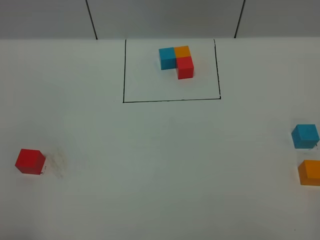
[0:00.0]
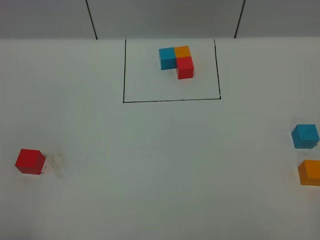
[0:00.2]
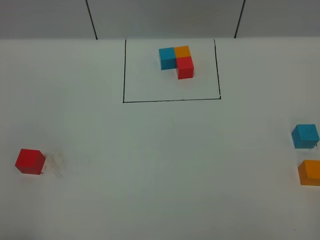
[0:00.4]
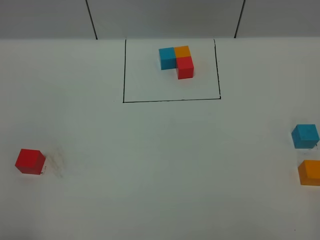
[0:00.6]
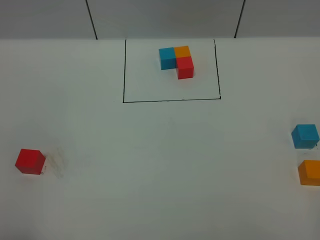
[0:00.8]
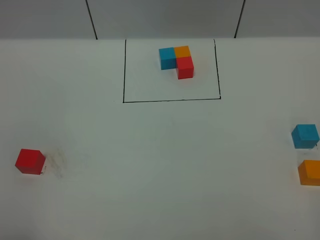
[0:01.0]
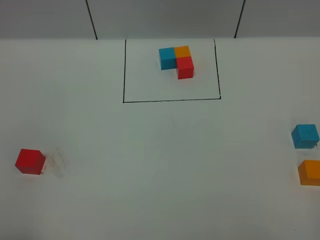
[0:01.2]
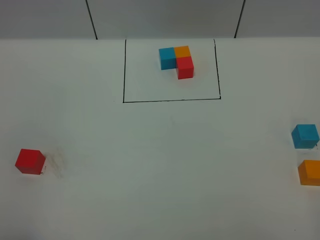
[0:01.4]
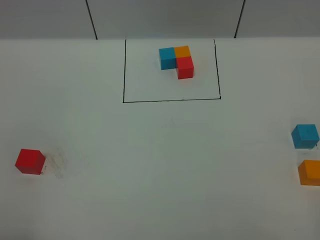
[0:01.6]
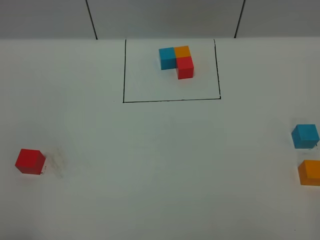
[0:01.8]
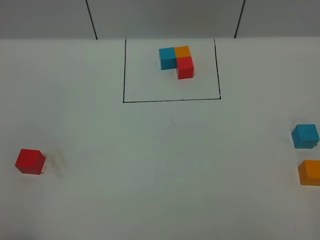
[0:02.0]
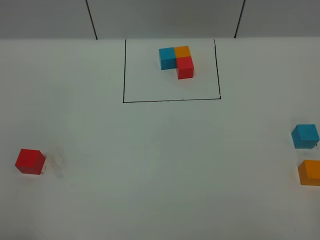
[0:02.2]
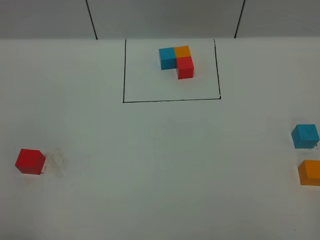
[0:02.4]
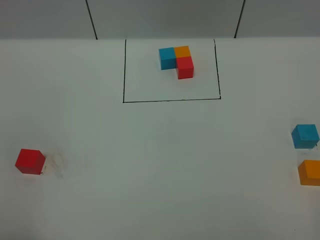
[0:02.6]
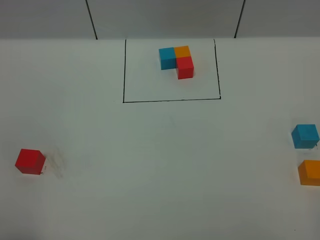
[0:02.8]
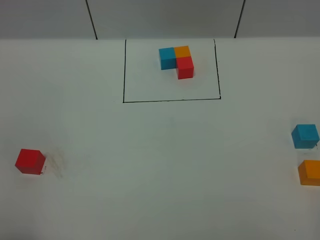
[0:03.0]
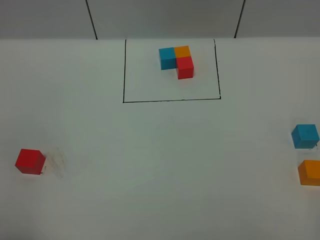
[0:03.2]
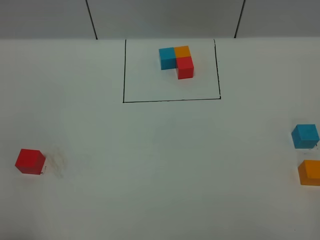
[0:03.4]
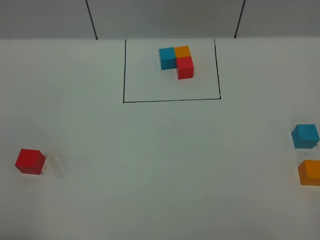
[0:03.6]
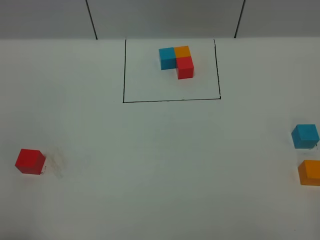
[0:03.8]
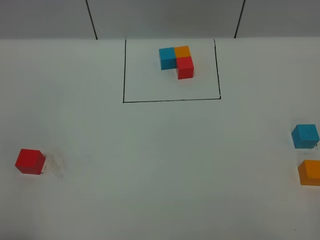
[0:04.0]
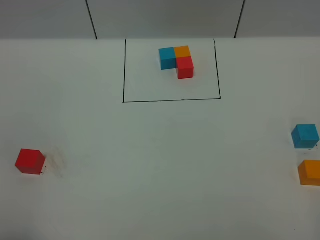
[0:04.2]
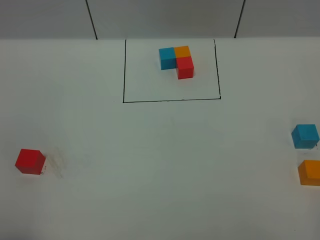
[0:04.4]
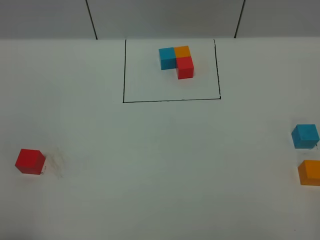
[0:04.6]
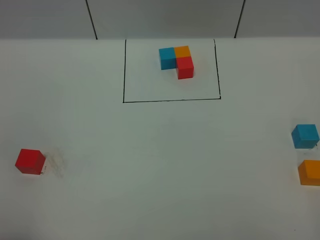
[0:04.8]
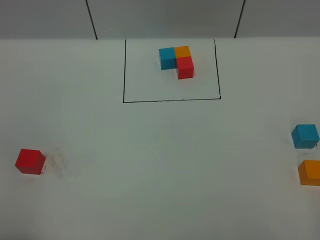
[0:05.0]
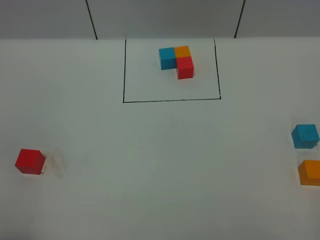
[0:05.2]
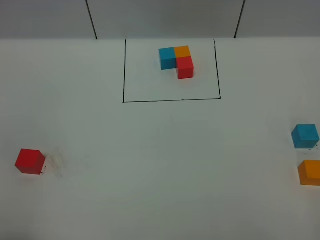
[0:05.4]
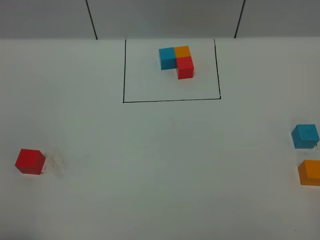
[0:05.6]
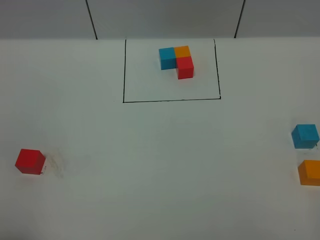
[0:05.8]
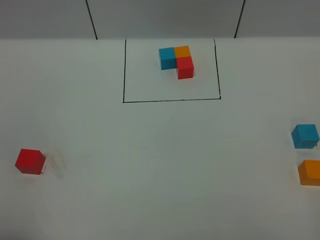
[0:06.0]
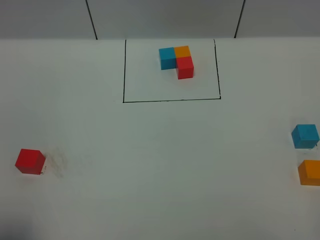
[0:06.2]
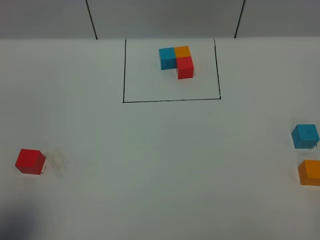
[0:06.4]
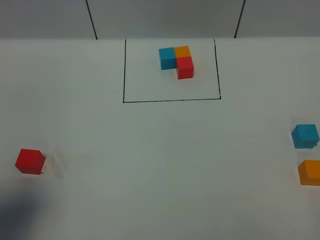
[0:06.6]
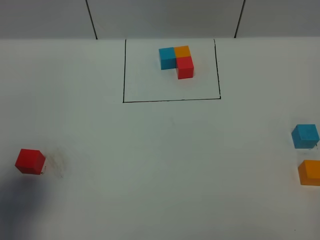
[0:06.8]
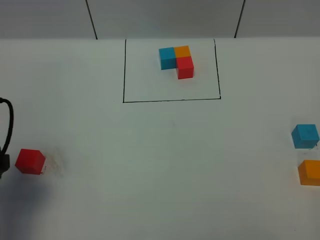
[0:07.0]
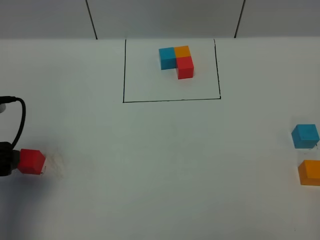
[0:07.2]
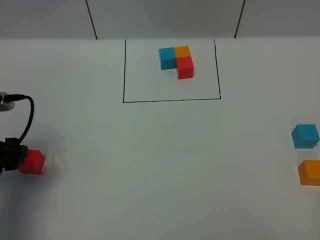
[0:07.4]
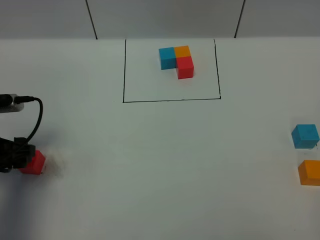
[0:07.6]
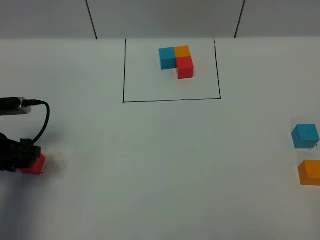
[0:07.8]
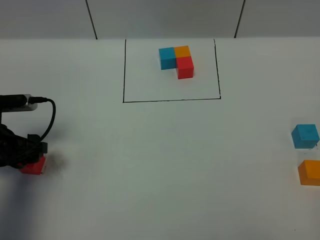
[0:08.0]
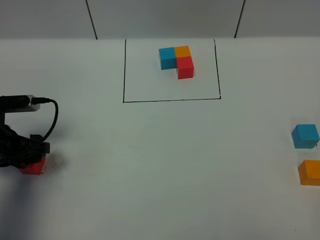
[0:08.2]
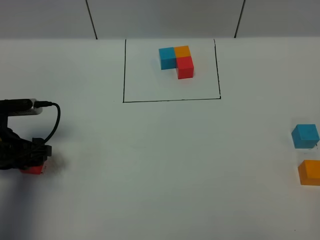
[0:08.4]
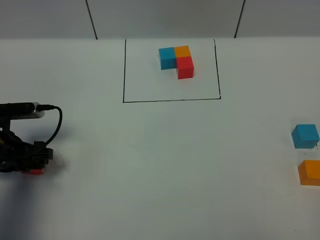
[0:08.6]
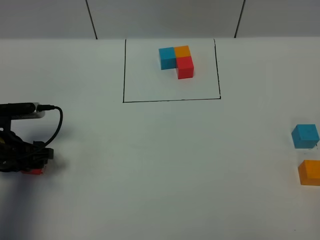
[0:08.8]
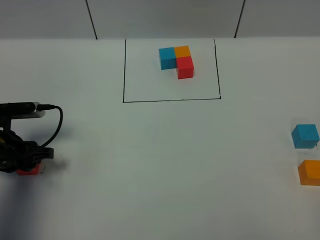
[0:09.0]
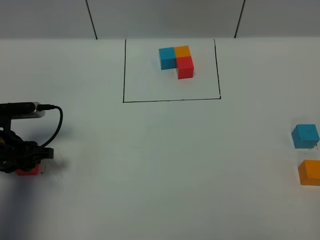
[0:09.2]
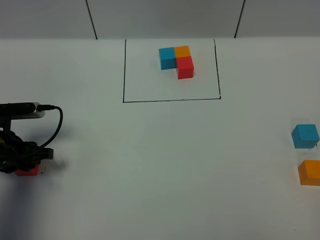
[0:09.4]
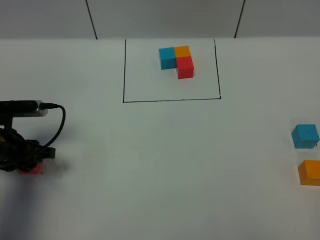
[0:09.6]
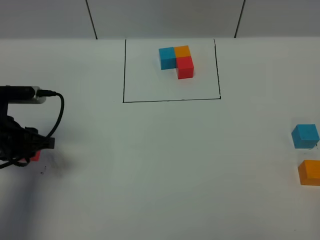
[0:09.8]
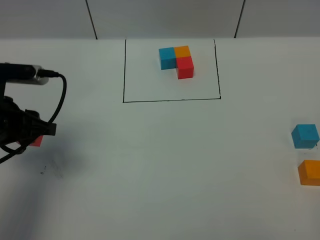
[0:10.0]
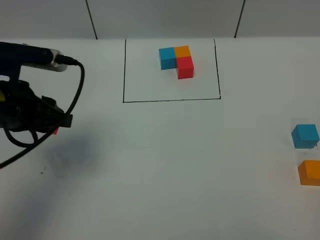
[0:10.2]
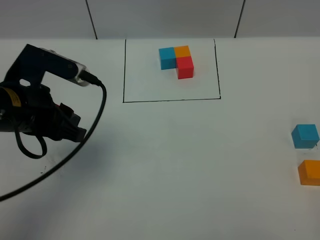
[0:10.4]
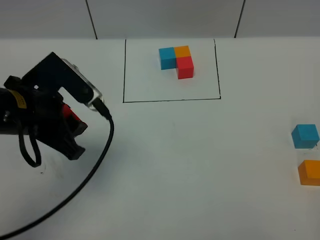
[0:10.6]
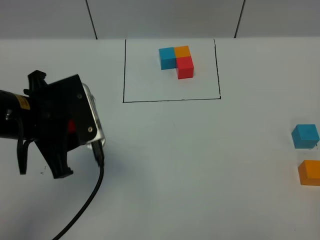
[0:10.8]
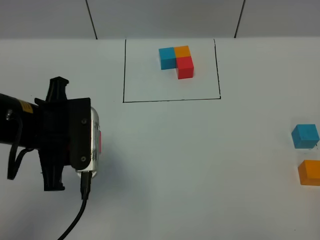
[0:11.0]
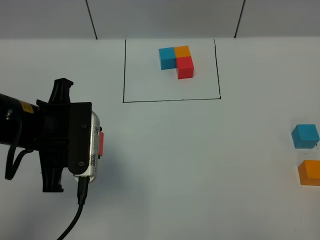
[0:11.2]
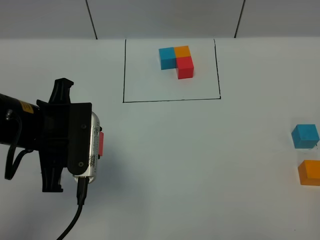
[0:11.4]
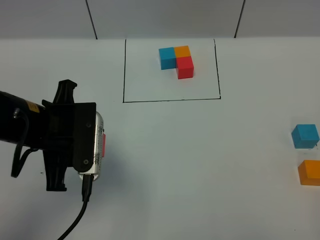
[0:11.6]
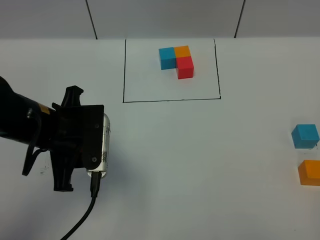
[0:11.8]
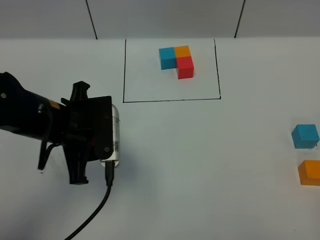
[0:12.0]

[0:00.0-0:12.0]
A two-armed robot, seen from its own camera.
Task of the whole recording: According to the building block template in front, assemble the scattered blocks together.
0:00.0 to 0:01.6: Both grippers stay about where they are.
0:03.0 to 0:04.4: The two grippers keep their place.
0:04.4 to 0:06.0: Both grippers stay about where they are.
0:06.0 to 0:07.6: The left gripper shifts roughly 25 cm forward and downward.
0:07.6 to 0:09.0: The left gripper moves about 5 cm, and closes.
0:09.0 to 0:10.4: The left gripper moves upward and to the right, some 15 cm.
0:10.4 to 0:12.0: The left gripper changes place by about 5 cm.

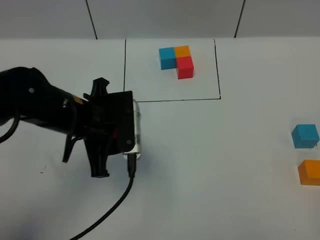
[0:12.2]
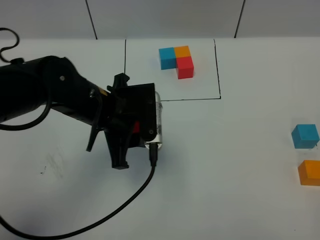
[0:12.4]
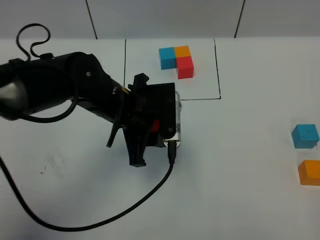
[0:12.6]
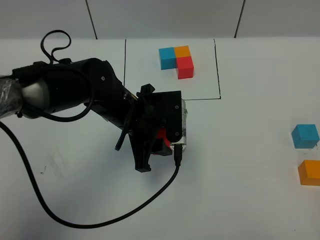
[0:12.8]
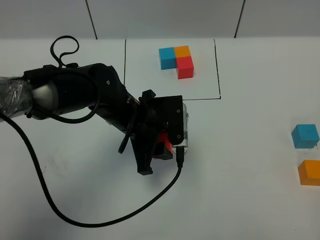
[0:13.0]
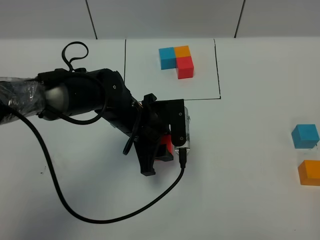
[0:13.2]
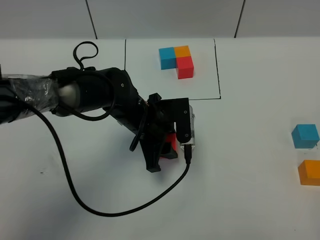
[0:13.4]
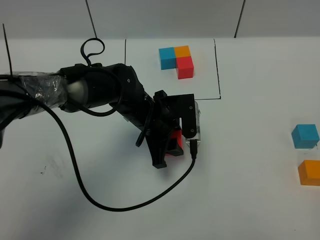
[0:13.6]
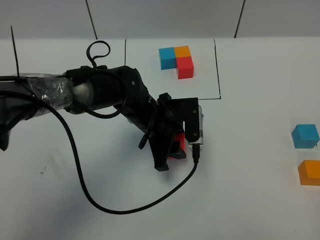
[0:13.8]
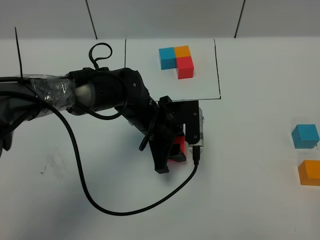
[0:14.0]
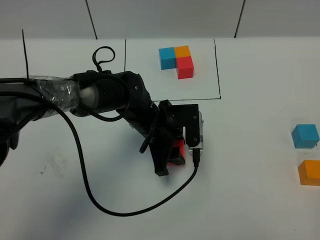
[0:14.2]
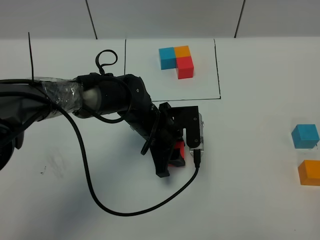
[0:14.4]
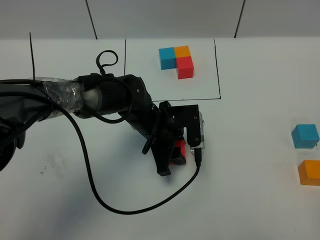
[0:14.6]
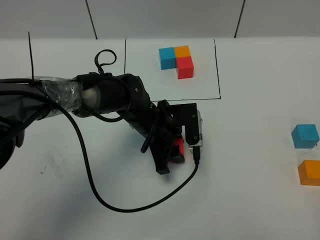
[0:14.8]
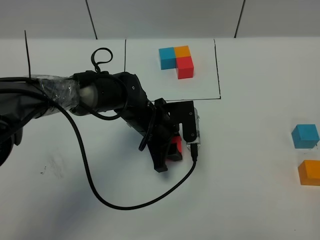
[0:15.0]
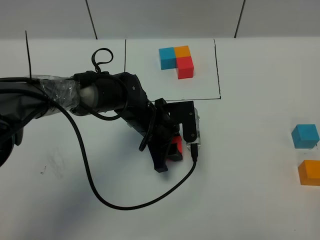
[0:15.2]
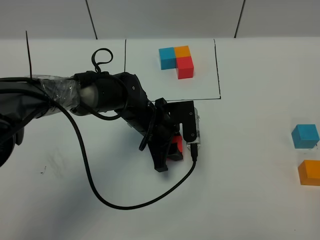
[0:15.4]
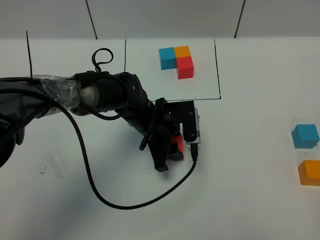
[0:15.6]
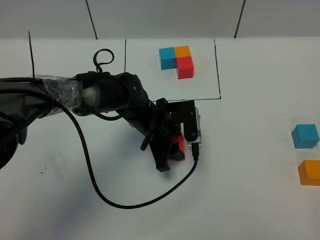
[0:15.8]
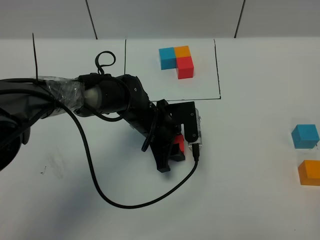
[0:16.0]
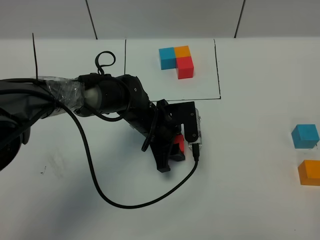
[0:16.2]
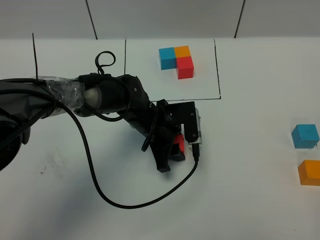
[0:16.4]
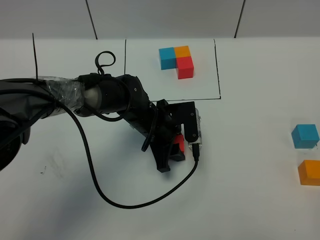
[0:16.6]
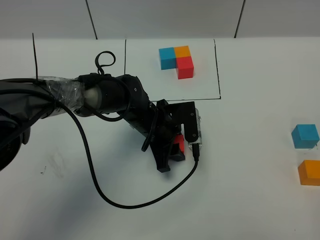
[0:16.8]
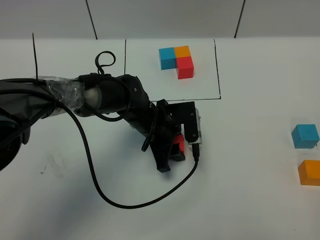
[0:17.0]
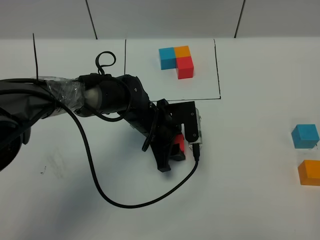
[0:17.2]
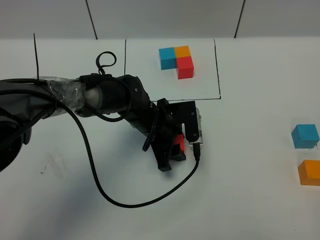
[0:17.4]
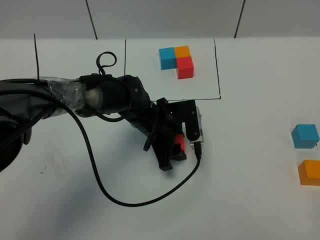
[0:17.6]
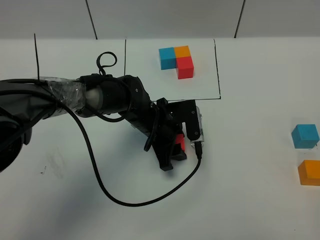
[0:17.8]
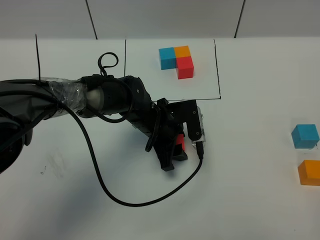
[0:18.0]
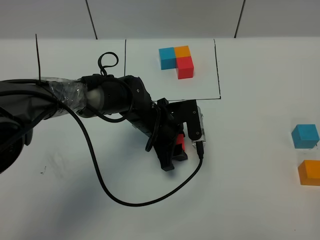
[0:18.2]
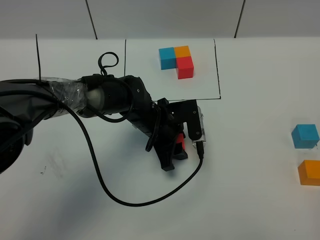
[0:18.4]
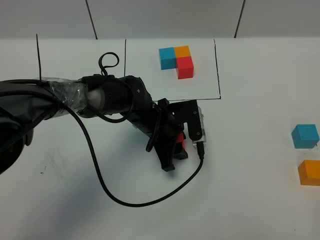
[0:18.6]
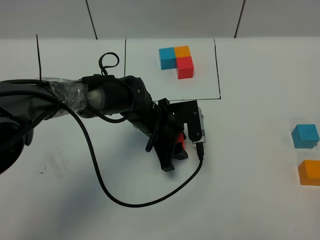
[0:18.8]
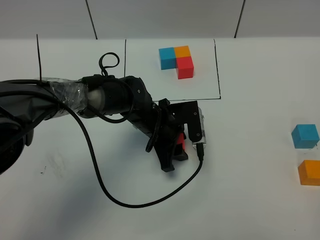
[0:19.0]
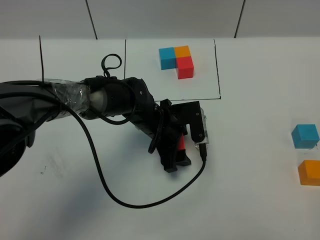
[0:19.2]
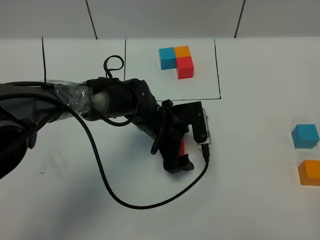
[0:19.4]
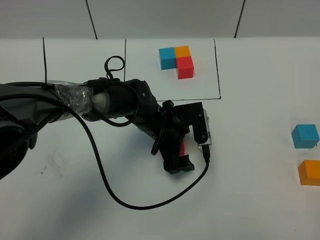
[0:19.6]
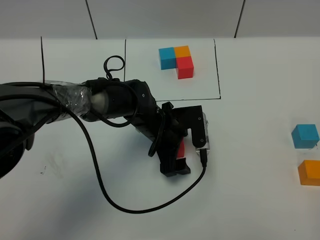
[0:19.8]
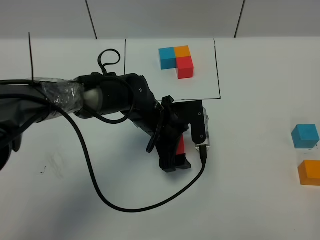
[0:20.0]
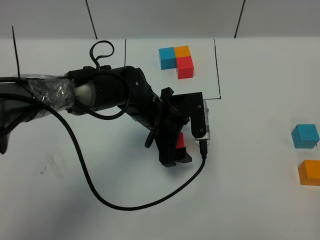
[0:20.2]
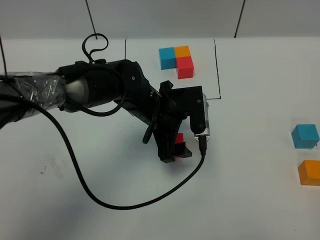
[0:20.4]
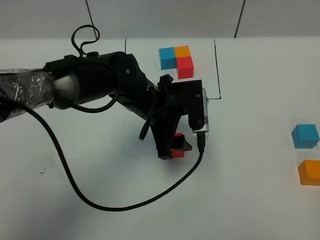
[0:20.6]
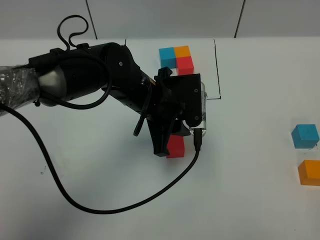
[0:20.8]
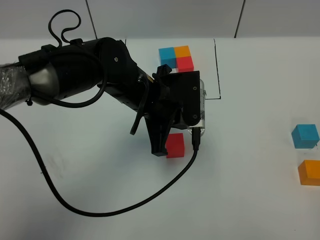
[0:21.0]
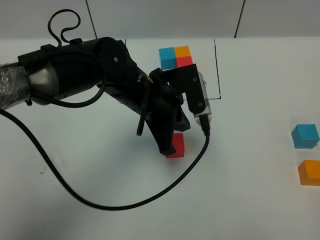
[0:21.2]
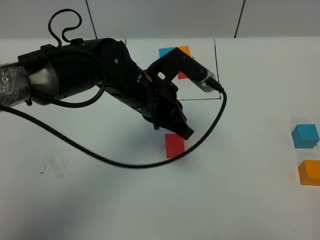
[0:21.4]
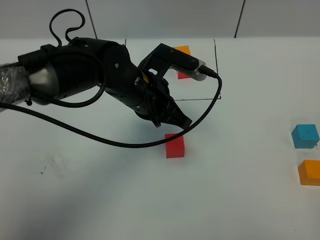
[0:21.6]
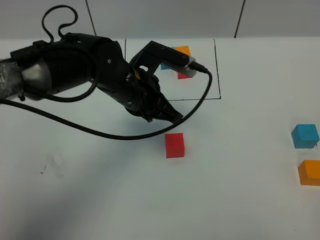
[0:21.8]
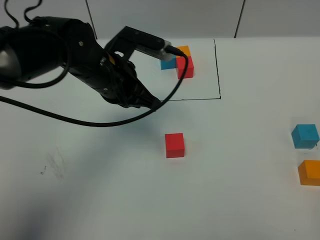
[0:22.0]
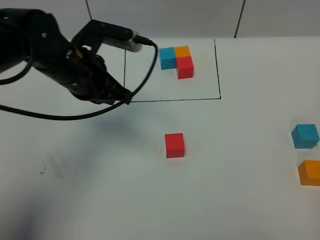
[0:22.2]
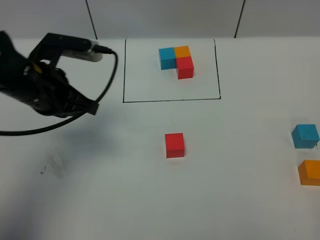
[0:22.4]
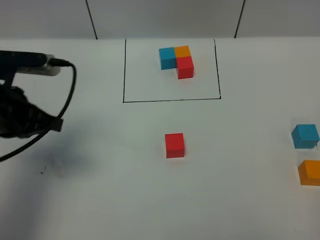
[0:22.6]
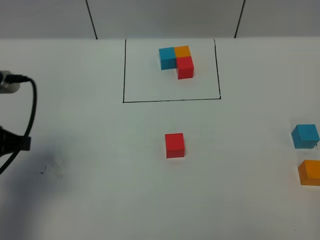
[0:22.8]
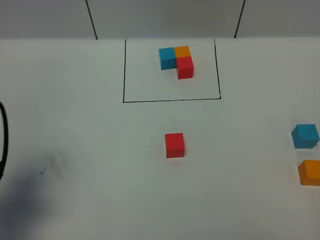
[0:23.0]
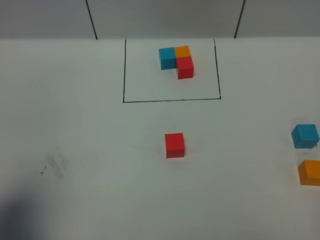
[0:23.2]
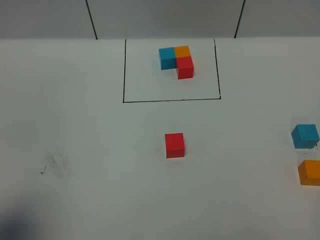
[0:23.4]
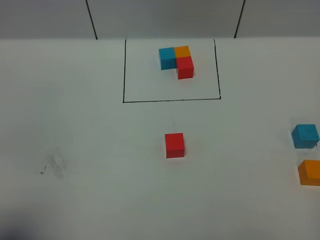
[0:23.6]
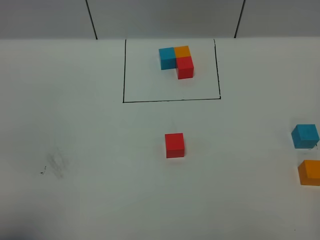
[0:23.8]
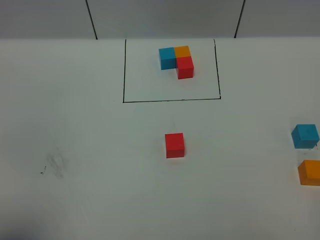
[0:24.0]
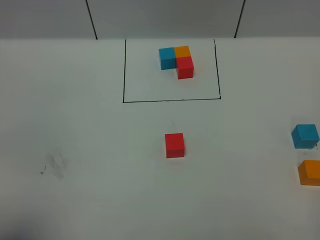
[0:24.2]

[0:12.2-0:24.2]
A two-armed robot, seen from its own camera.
Task of the whole recording: According to the building block template in front, assemble the scattered blocks together.
Step, 0:12.2 to 0:19.4: Put the red cube in the center of the table.
0:12.2 to 0:13.8: The left gripper goes some 15 cm to the right, downward and forward.
0:13.8 to 0:15.2: The grippers make only small movements.
0:15.2 to 0:18.2: Both grippers stay put.
0:18.2 to 0:19.8: There are only small adjustments of the grippers.
0:19.8 to 0:21.2: The left gripper travels upward by some 10 cm, and closes.
0:21.2 to 0:22.6: The left gripper heads to the left, covering approximately 20 cm.
0:22.6 to 0:24.2: The left gripper travels backward by about 25 cm.
